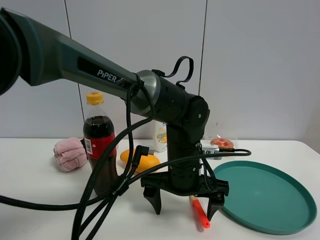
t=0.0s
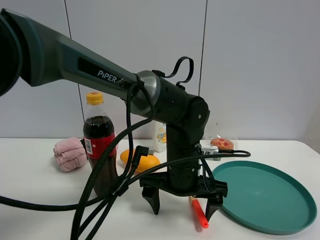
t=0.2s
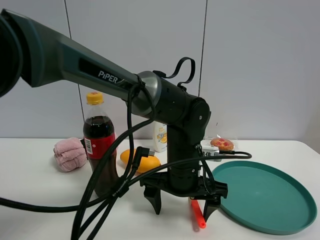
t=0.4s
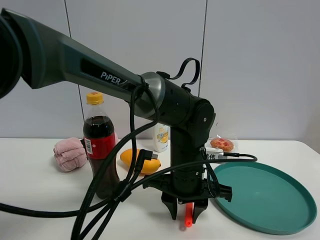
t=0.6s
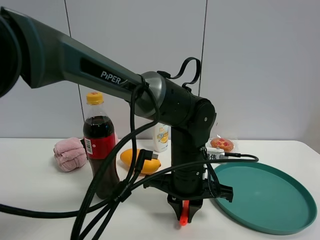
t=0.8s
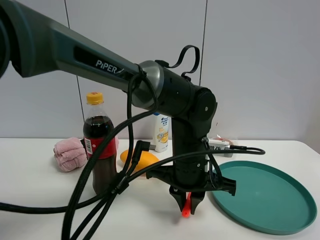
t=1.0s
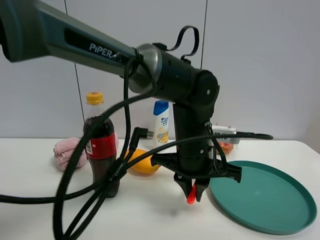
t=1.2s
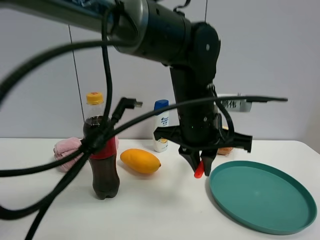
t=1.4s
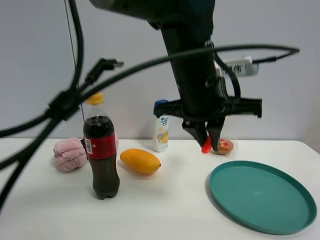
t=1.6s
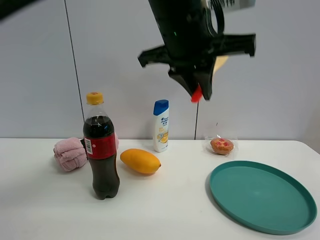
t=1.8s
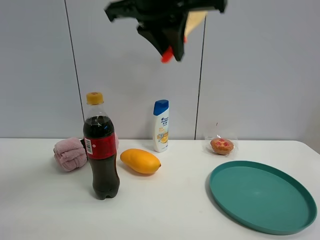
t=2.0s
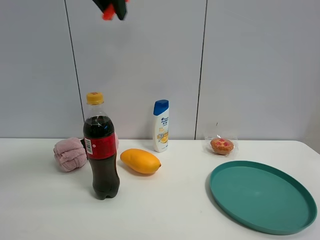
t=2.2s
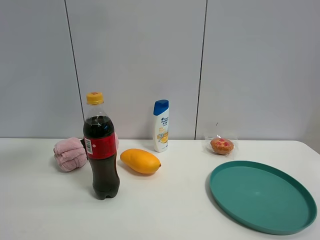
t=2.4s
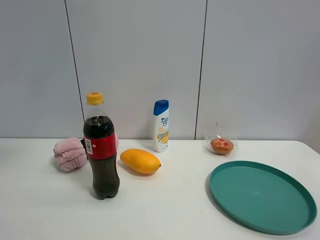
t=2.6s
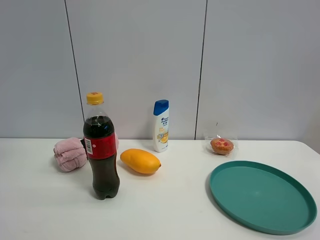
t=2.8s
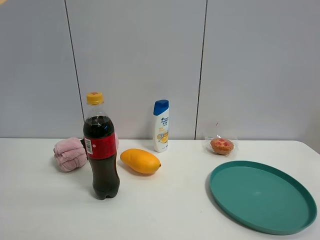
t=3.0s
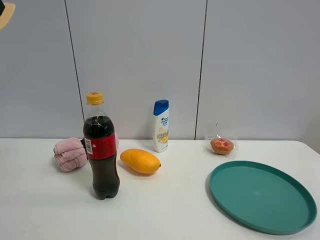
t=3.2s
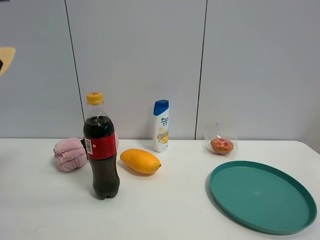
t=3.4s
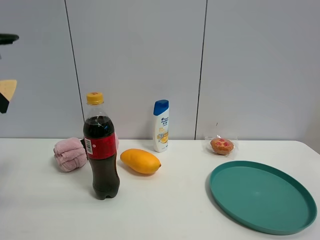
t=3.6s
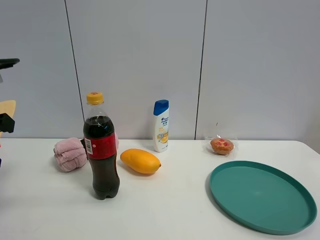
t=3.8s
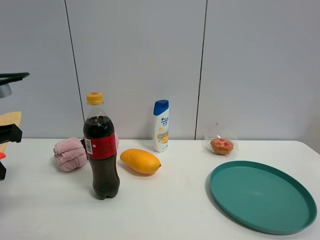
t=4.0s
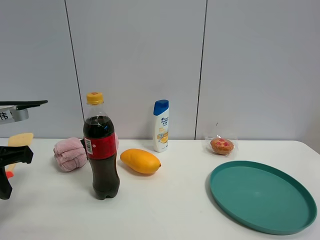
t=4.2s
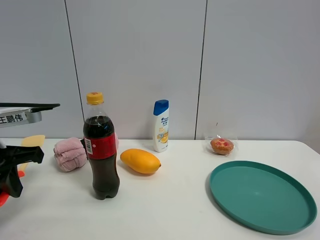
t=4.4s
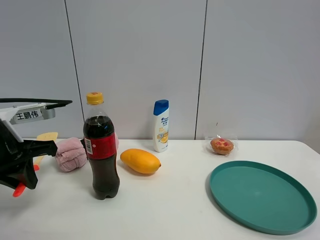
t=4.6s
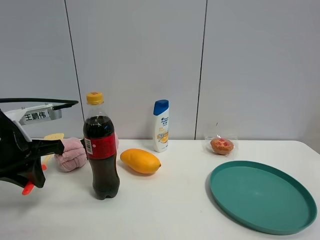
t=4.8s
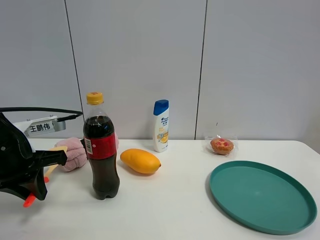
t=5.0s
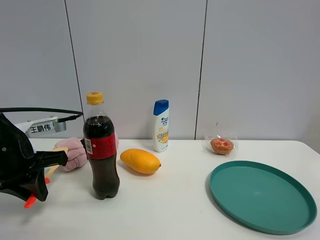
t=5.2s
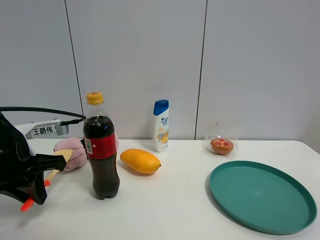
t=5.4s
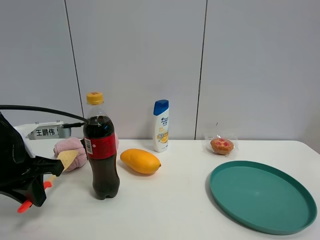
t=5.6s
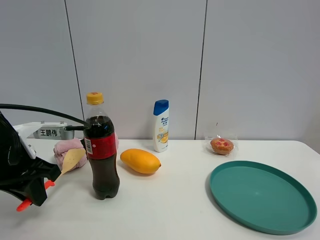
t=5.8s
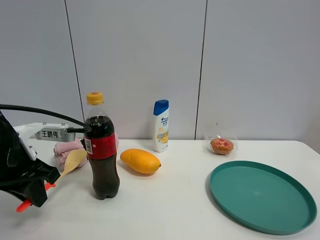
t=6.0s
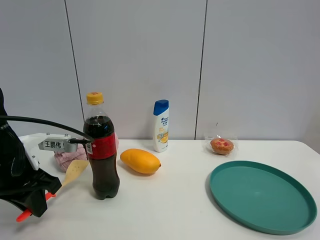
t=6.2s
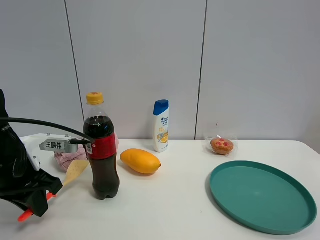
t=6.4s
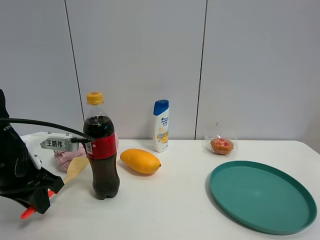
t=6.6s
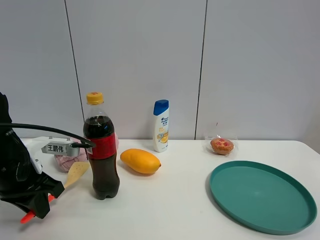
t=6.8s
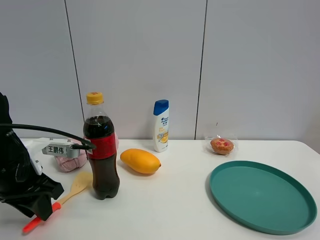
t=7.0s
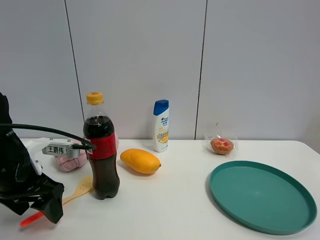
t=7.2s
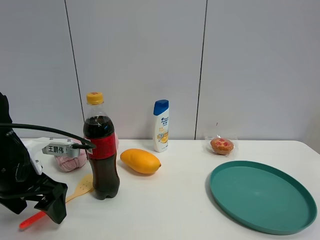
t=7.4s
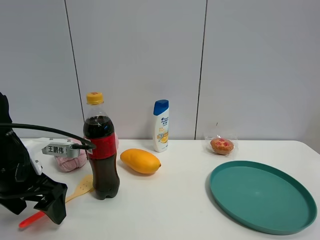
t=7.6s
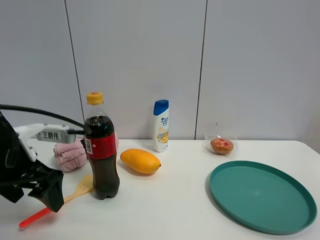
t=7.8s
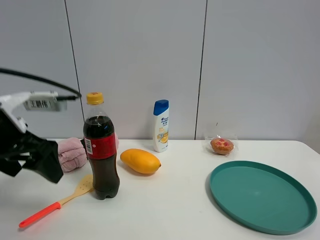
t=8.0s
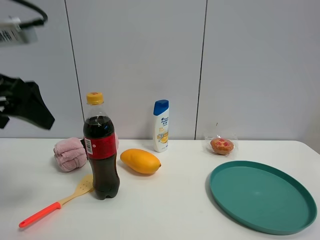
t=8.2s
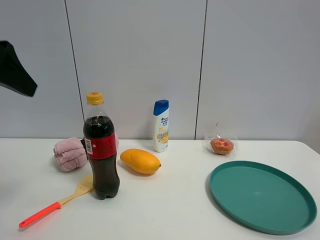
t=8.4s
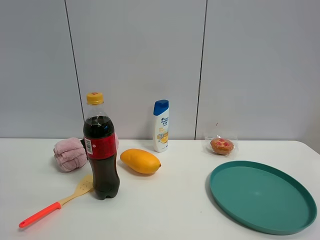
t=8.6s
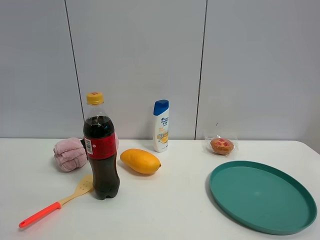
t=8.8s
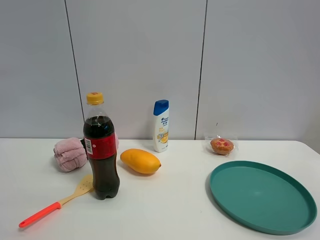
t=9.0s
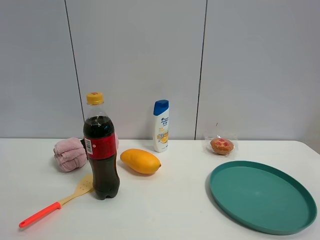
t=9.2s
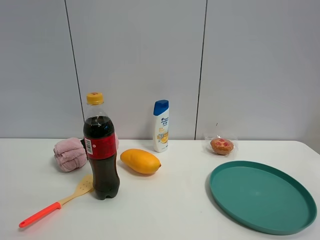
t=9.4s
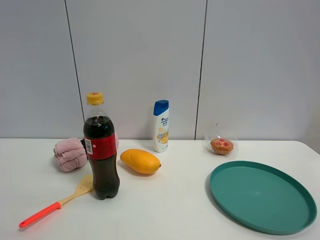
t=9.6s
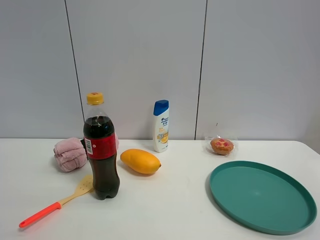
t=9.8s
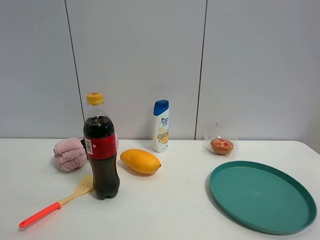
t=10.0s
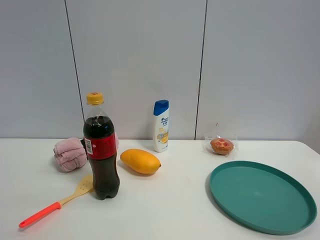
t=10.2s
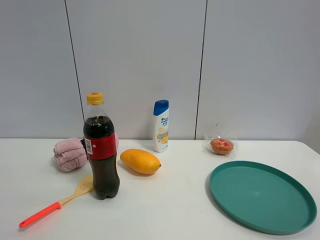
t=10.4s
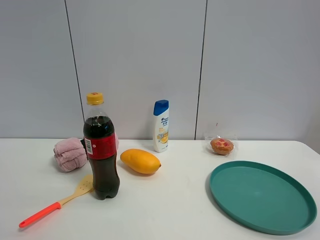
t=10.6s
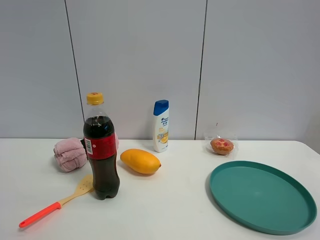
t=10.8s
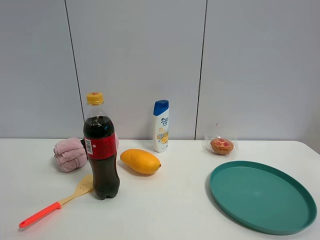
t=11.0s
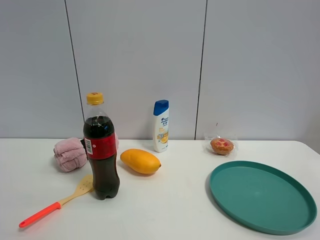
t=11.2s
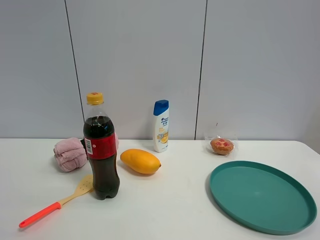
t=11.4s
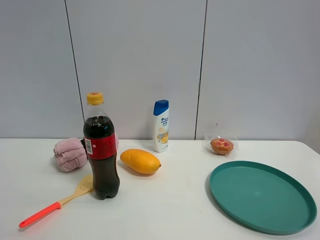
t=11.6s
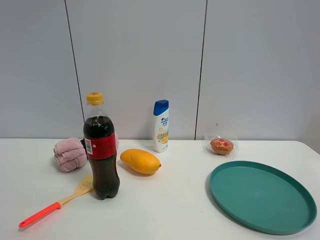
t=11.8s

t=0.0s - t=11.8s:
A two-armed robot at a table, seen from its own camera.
Task of the whole recording: the gripper move the object.
Step, t=1.0s - t=7.2s: Place the cooking shovel on the table with the left gripper.
t=0.0s - t=1.4s: The left gripper heads upward, covering some 10 cm, and closes up.
t=1.4s - t=3.0s: The left gripper goes some 35 cm to the left and upward.
t=3.0s - t=4.4s: The left gripper is displaced downward by roughly 25 cm.
t=6.0s - t=7.4s: The left gripper opens.
t=7.4s - t=8.8s: The left gripper is displaced upward and backward by approximately 25 cm.
t=10.4s - t=11.8s: Neither gripper changes place.
